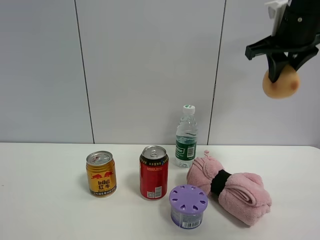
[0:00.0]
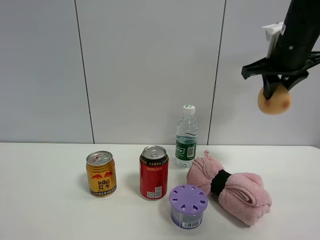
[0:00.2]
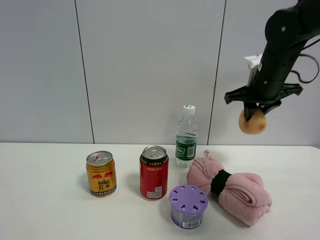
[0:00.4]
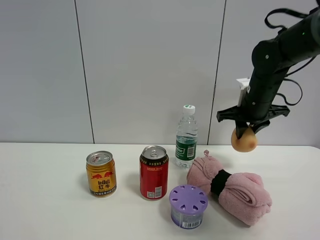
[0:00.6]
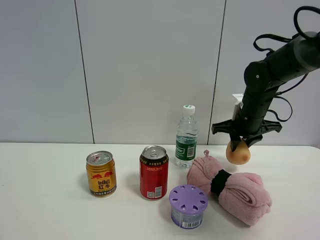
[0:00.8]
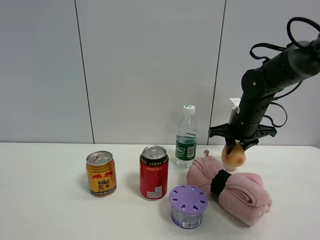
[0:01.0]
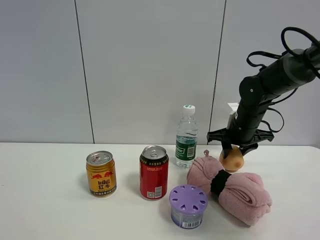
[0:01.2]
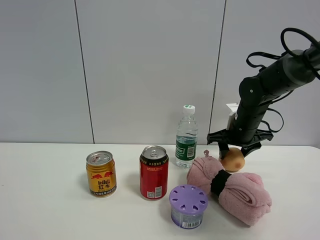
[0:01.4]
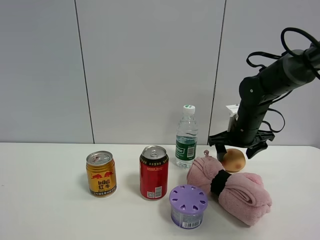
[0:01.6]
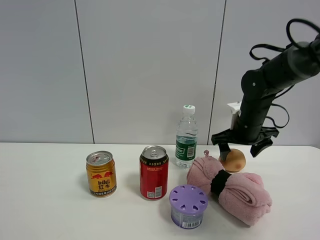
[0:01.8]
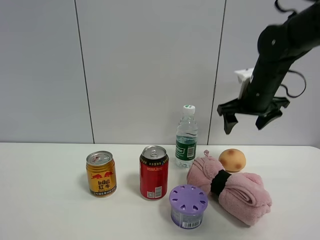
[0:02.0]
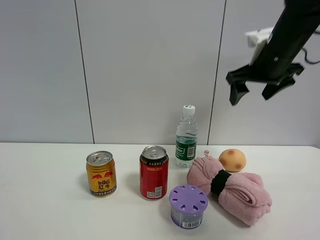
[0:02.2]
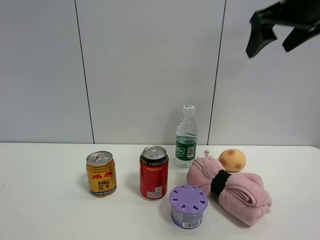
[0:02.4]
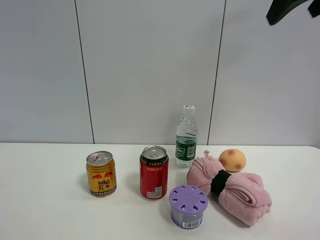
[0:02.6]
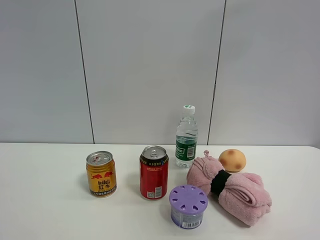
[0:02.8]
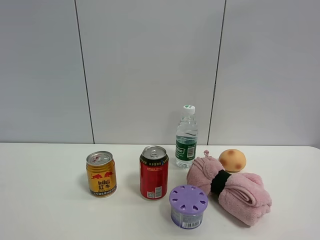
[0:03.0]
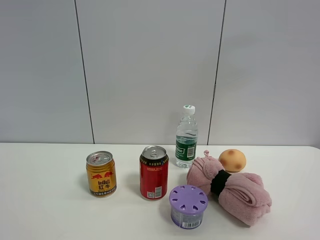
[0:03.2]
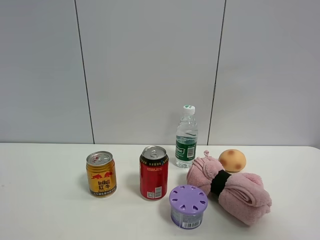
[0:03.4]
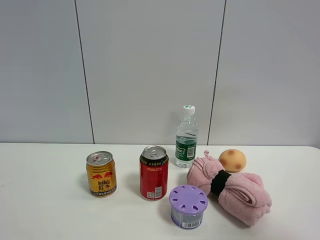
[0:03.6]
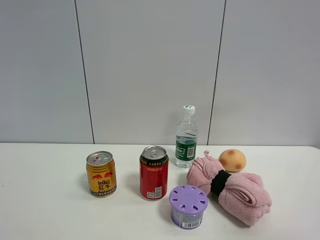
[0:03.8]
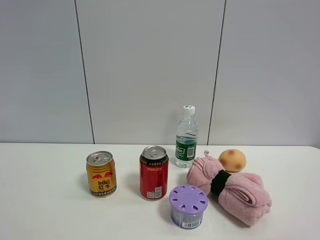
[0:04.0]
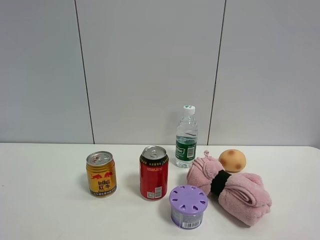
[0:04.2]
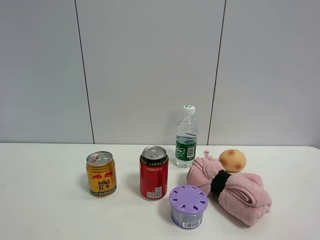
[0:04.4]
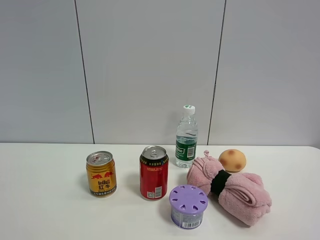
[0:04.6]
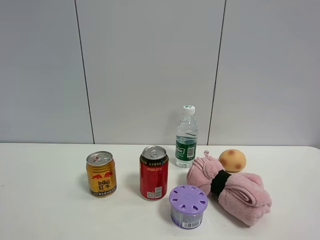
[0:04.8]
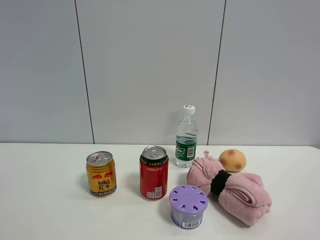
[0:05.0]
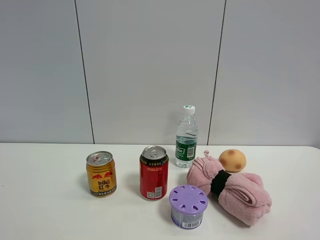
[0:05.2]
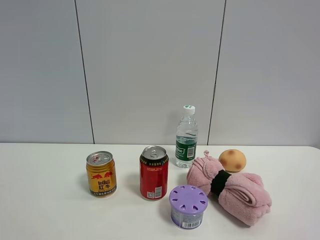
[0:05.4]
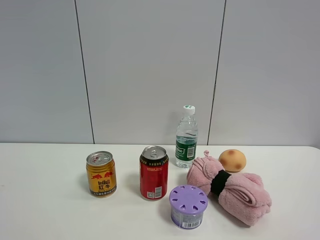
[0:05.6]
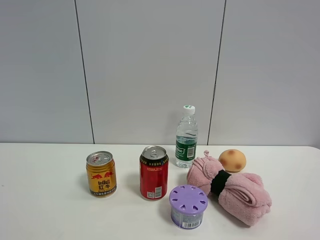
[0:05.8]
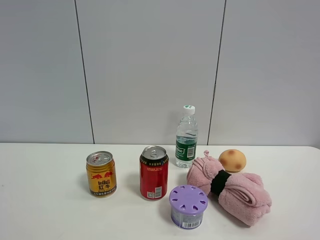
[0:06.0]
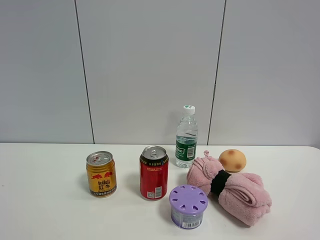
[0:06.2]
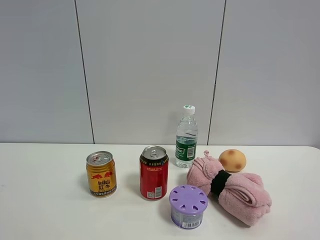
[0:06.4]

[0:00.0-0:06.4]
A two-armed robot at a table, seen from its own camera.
Task of the whole recording: the gripper move the object.
0:00.0 to 0:01.6: The right gripper shifts approximately 20 cm downward, and opens its fingers.
0:01.6 to 0:03.2: The right gripper shifts some 40 cm upward and backward.
0:03.2 to 0:04.8: The right gripper travels downward and backward by roughly 20 cm.
0:04.8 to 0:06.4: The two grippers keep their place.

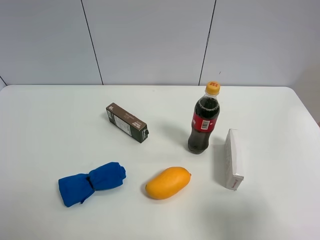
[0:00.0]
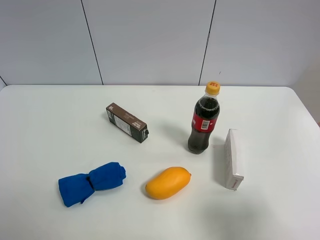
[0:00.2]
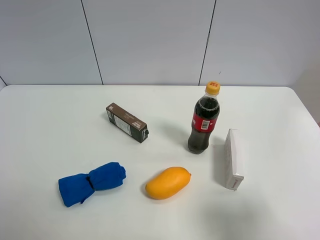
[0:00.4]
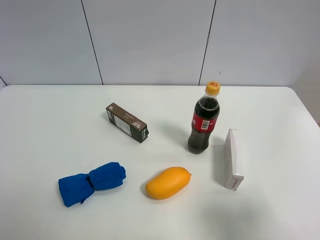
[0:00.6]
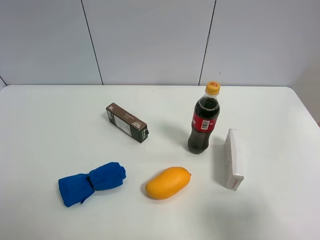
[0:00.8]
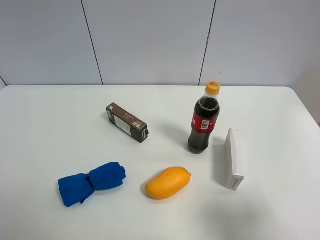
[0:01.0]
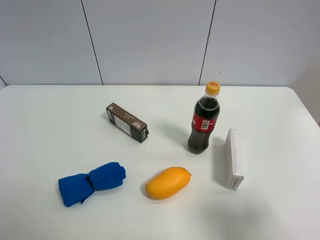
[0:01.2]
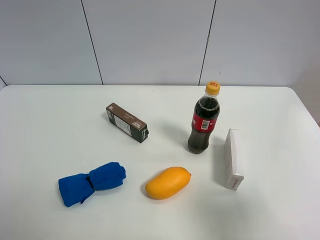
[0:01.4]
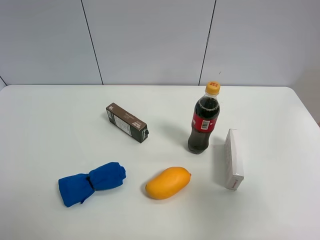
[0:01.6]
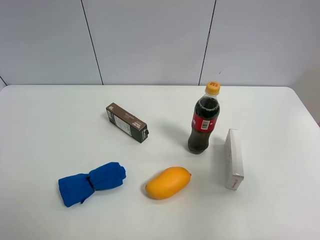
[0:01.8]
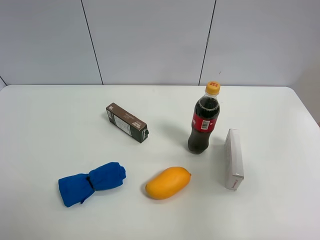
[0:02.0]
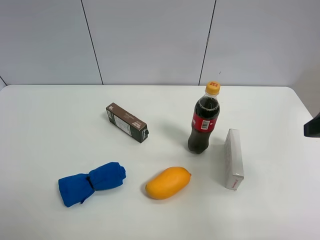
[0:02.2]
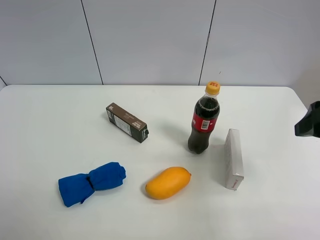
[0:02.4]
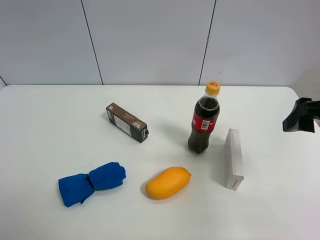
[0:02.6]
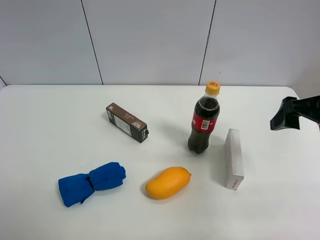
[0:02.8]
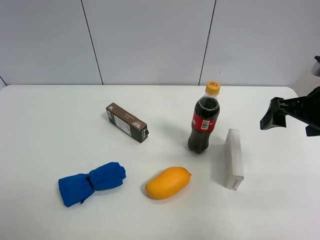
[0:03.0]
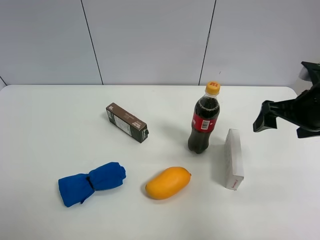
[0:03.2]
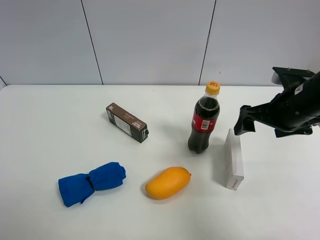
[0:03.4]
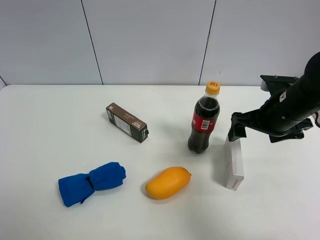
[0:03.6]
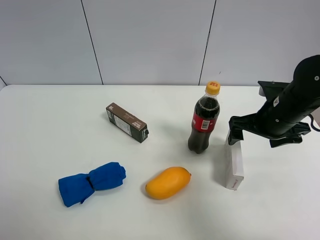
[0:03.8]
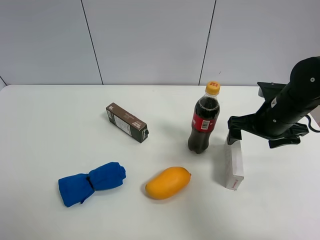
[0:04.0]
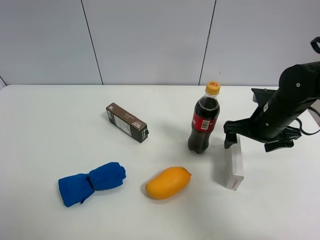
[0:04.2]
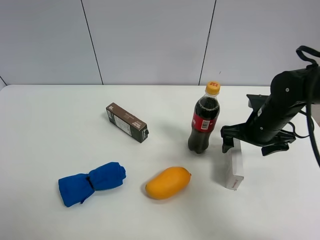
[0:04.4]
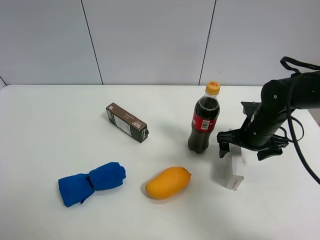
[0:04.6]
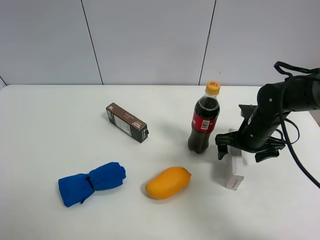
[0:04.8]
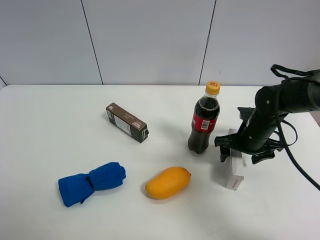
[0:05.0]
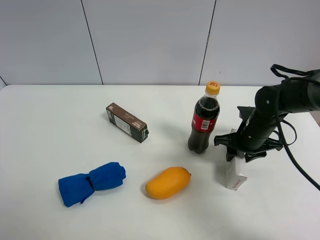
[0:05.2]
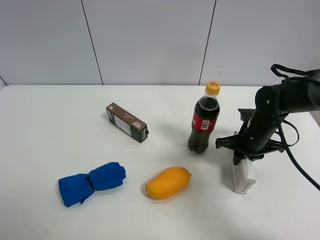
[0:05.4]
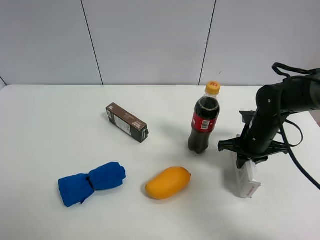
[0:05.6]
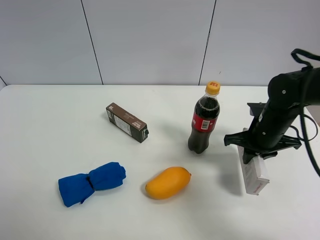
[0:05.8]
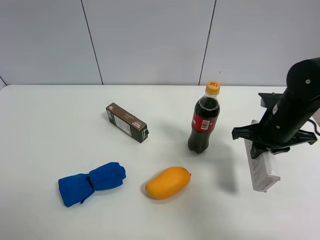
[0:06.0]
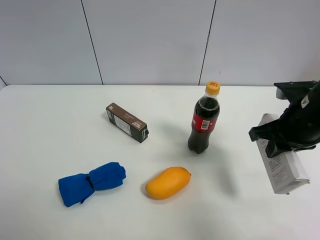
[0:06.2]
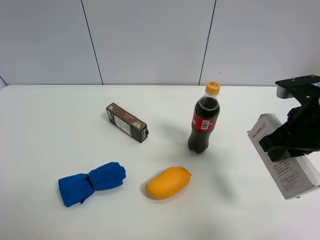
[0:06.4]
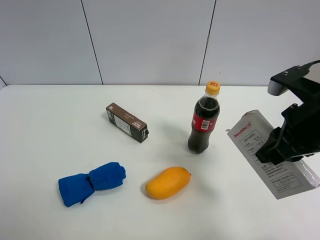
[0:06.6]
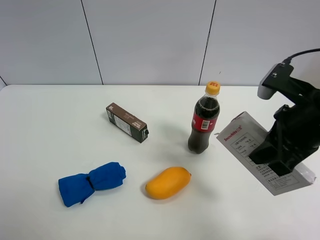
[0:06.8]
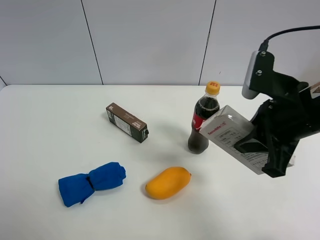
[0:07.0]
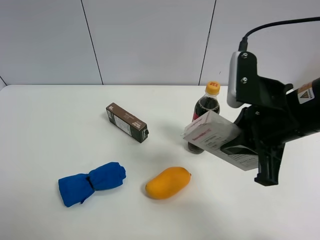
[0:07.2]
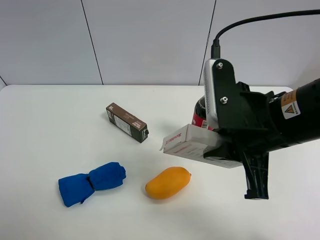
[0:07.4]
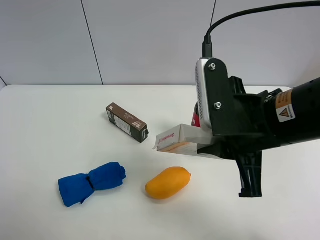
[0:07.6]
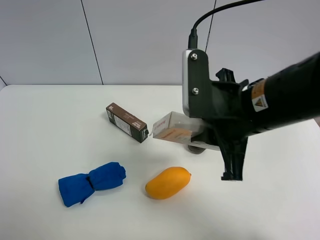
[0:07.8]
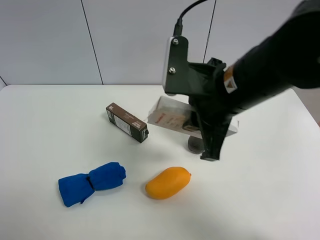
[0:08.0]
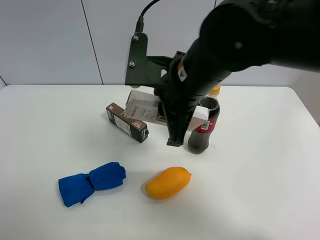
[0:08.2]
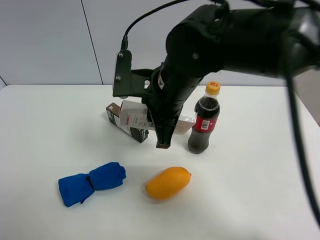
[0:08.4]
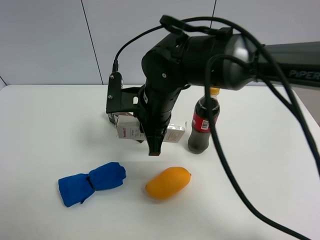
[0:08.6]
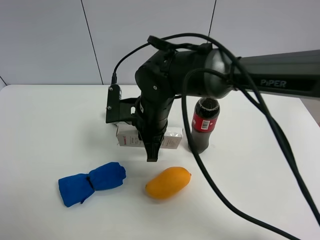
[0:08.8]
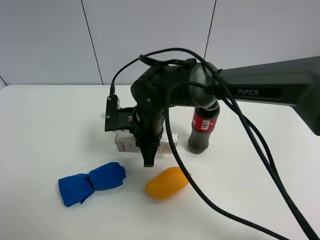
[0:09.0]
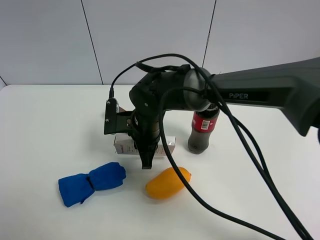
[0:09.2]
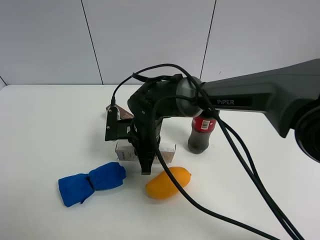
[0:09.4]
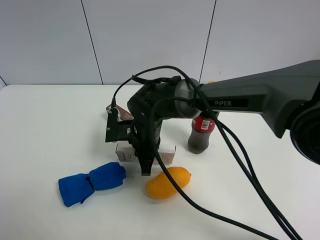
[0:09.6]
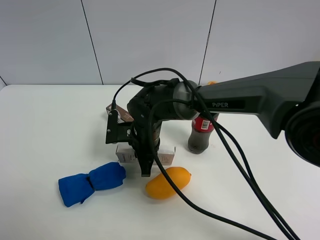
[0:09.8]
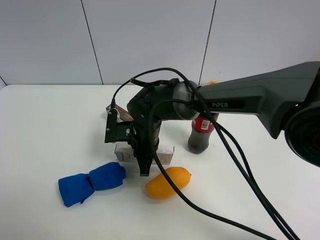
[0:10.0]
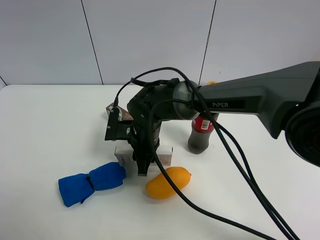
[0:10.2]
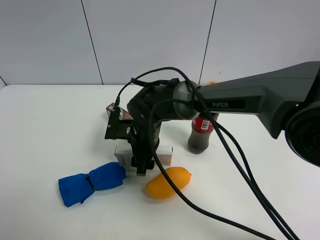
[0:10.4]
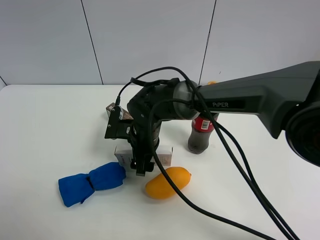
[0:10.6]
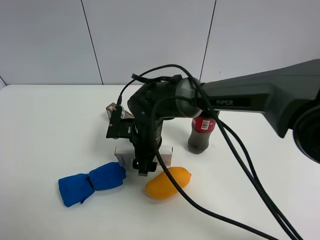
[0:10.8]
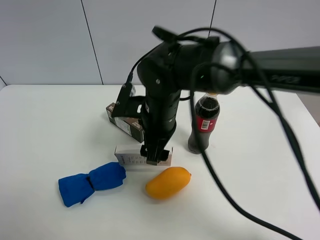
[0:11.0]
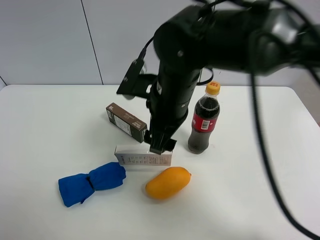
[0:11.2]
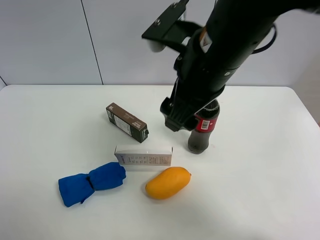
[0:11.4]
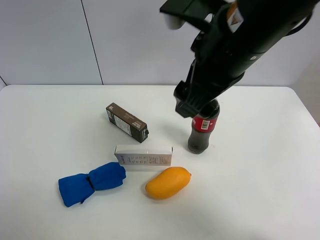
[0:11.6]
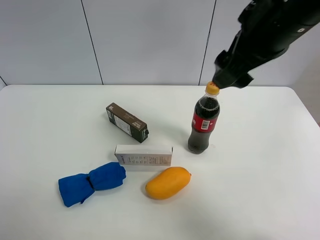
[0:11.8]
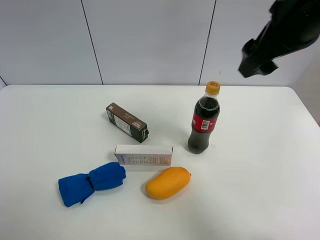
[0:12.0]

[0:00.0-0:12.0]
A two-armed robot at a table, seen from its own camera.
Task of the whole recording: the gripper move the object.
Step, 0:00.0 to 0:05.2: Grasp the USB box with the right gripper.
Step, 0:05.4 to 0:11.2: Place the USB box on the table with the right gripper.
0:00.0 to 0:01.6: The right gripper heads upward, covering approximately 5 cm.
0:01.6 to 0:03.0: The right gripper heads forward, covering approximately 20 cm.
0:03.0 to 0:04.4: The right gripper shifts roughly 15 cm downward, to the left and forward.
0:04.4 to 0:06.0: The right gripper moves roughly 5 cm, and closes.
0:06.0 to 0:07.6: The right gripper moves to the left, backward and upward, approximately 20 cm.
0:07.6 to 0:09.0: The right gripper is displaced to the left, downward and forward by approximately 25 cm.
0:09.0 to 0:10.4: The right gripper opens its fingers.
0:10.4 to 0:12.0: The right gripper is displaced upward and to the right by some 35 cm.

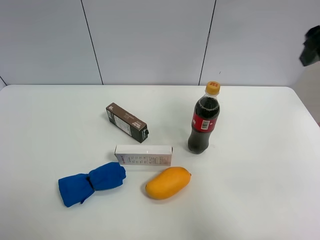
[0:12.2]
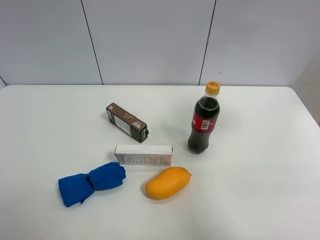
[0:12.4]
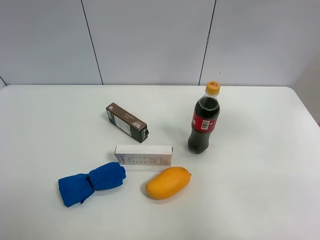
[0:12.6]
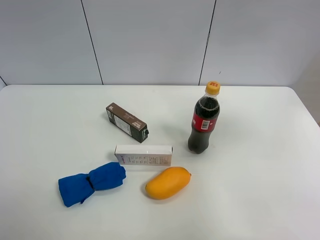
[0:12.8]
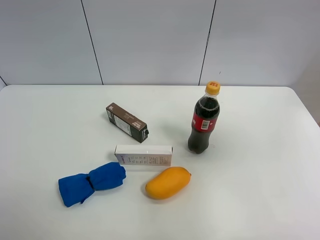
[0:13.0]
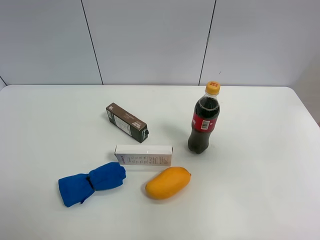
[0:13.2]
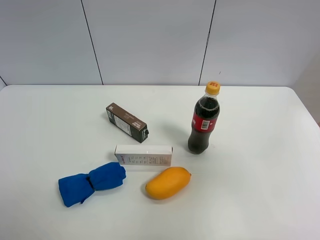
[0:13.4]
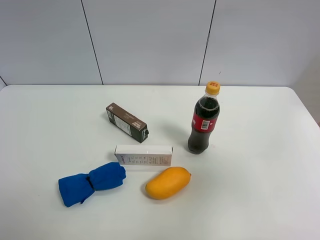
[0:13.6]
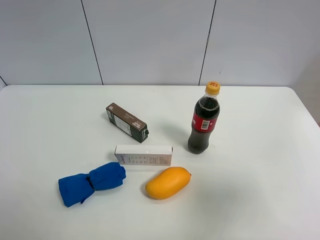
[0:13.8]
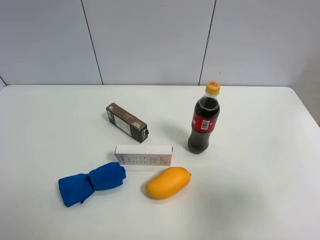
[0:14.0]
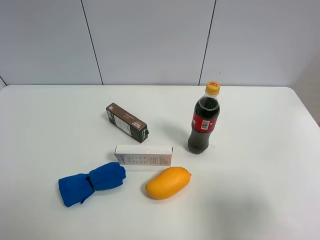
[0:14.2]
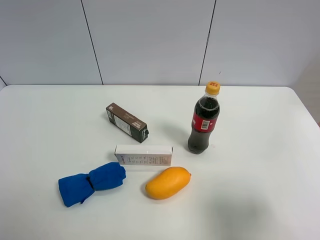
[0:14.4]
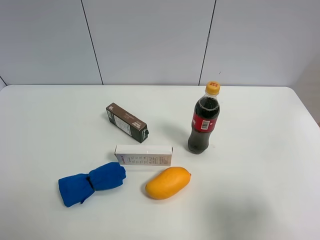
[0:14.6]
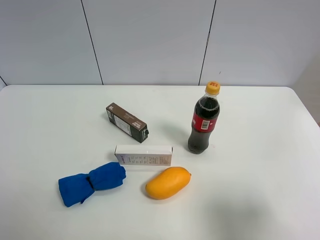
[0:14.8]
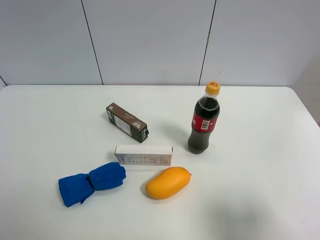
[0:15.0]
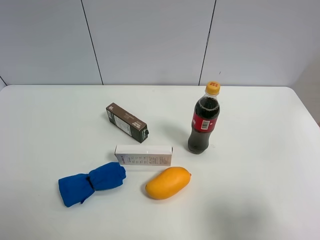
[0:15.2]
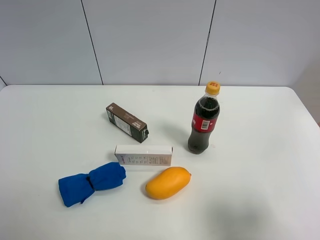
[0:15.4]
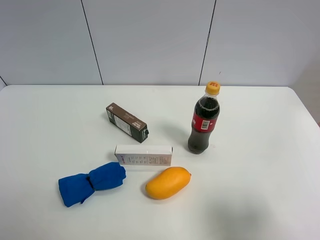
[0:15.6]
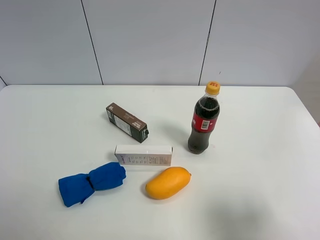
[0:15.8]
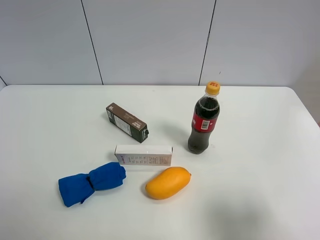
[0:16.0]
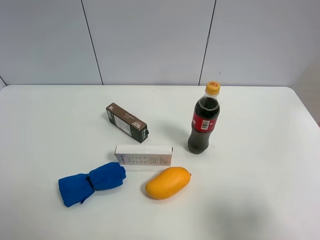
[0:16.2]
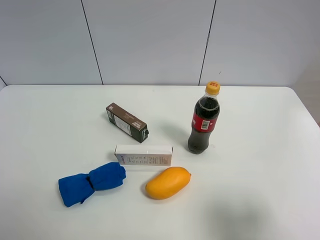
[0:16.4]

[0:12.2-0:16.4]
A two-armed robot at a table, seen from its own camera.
Task of the whole recording: the gripper move the object.
0:12.2 to 0:13.6: The right gripper goes about 25 cm backward.
0:13.6 to 0:15.0: The right gripper goes roughly 20 cm downward.
0:15.0 to 0:16.4: Both grippers stay about where they are.
